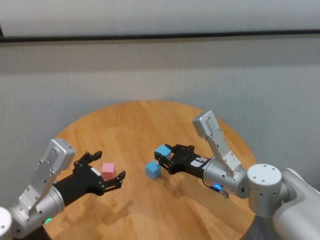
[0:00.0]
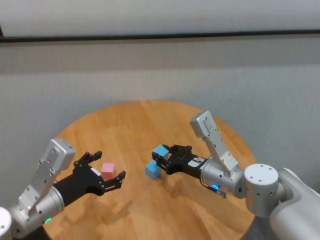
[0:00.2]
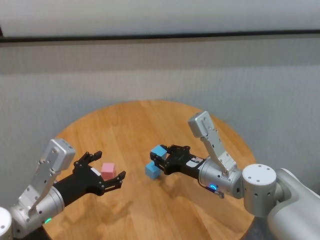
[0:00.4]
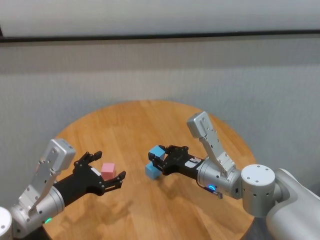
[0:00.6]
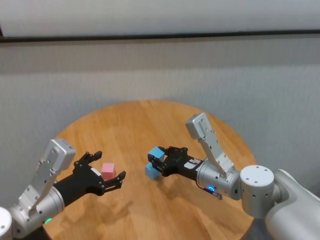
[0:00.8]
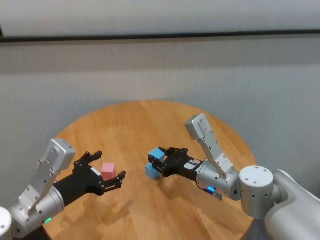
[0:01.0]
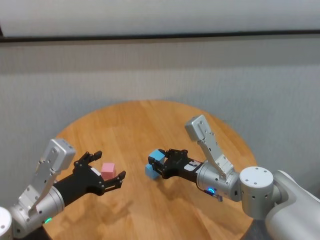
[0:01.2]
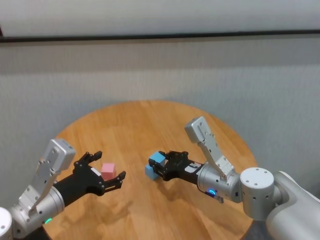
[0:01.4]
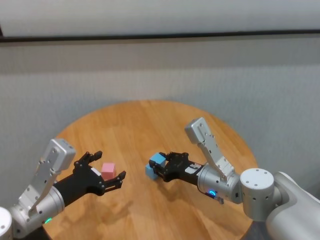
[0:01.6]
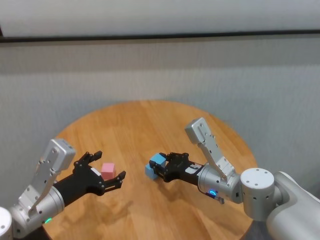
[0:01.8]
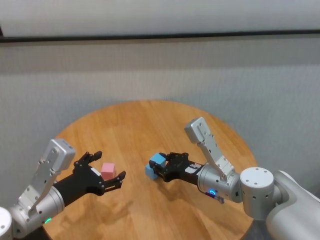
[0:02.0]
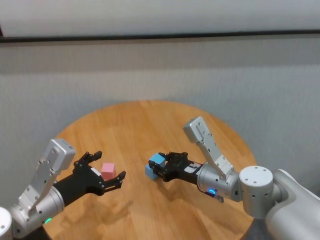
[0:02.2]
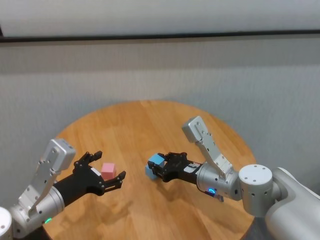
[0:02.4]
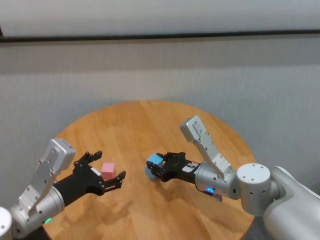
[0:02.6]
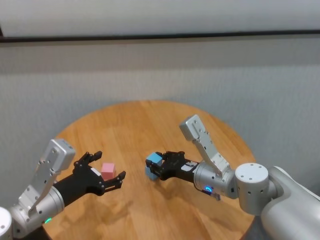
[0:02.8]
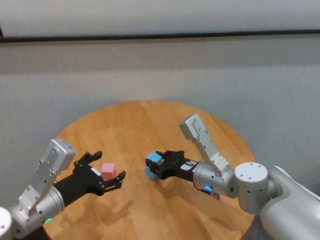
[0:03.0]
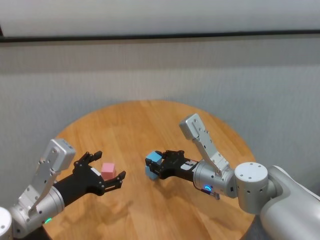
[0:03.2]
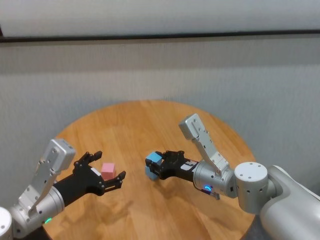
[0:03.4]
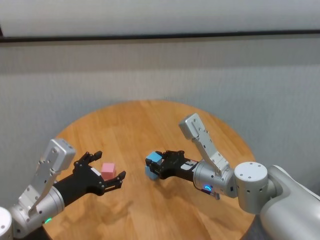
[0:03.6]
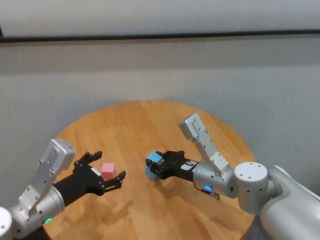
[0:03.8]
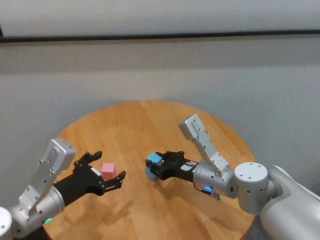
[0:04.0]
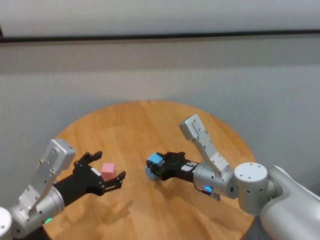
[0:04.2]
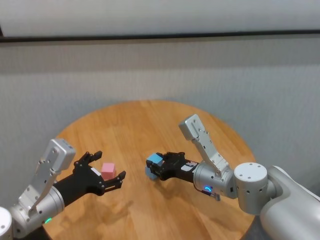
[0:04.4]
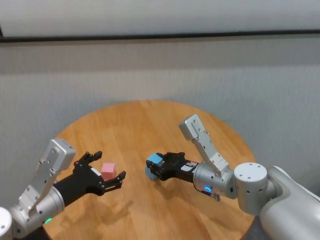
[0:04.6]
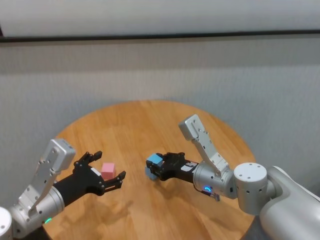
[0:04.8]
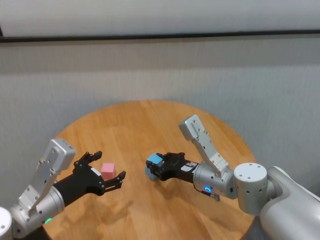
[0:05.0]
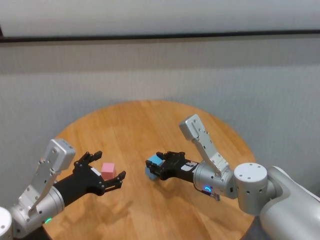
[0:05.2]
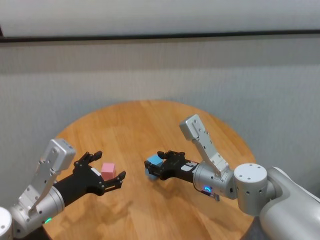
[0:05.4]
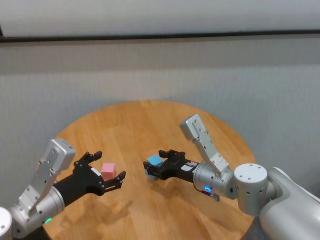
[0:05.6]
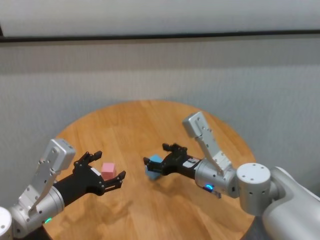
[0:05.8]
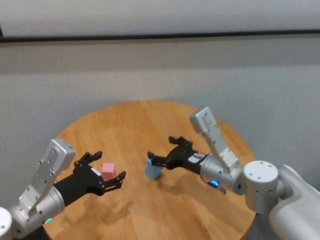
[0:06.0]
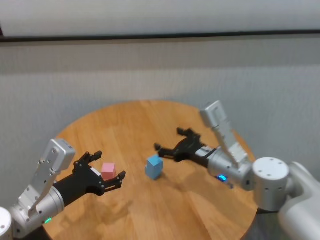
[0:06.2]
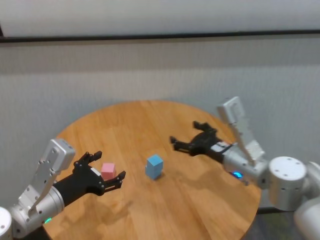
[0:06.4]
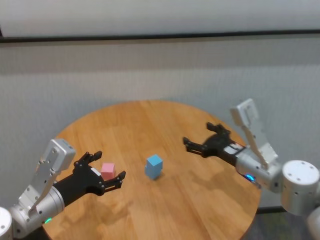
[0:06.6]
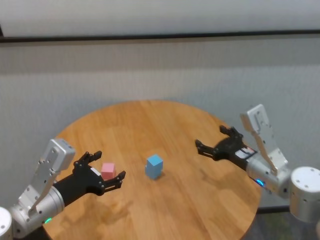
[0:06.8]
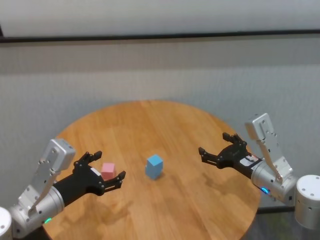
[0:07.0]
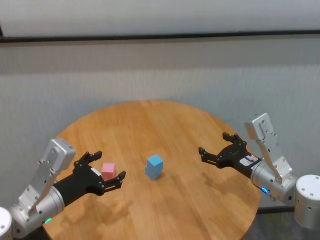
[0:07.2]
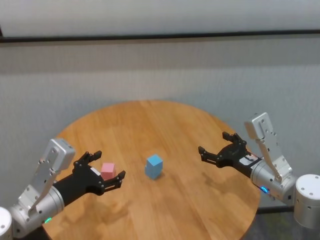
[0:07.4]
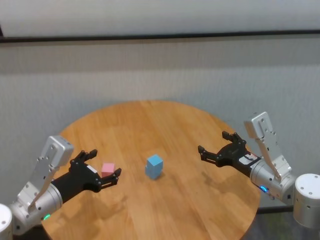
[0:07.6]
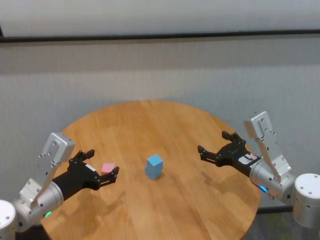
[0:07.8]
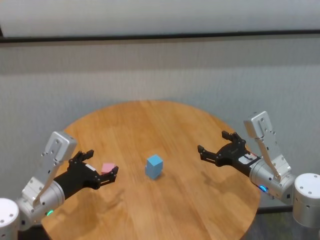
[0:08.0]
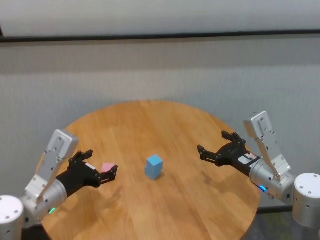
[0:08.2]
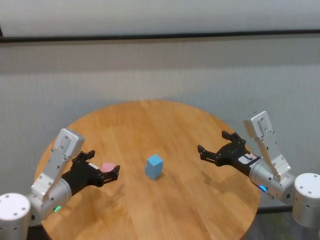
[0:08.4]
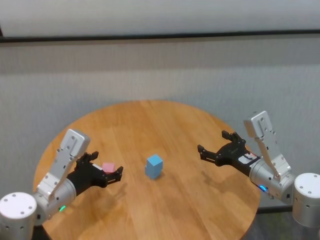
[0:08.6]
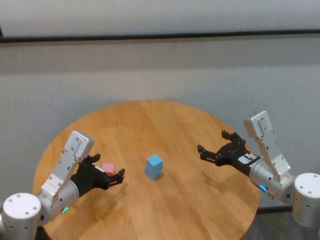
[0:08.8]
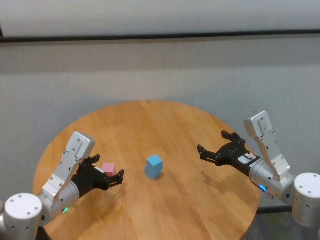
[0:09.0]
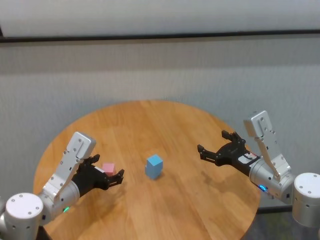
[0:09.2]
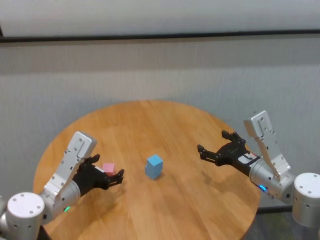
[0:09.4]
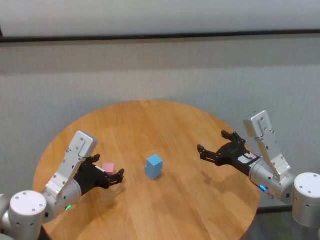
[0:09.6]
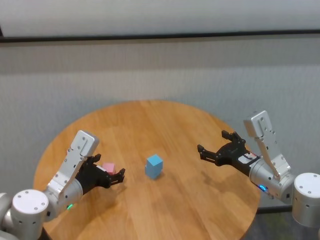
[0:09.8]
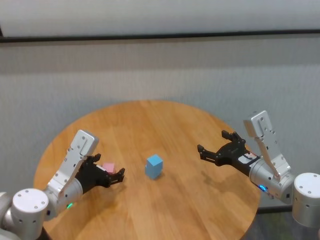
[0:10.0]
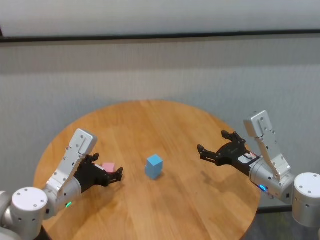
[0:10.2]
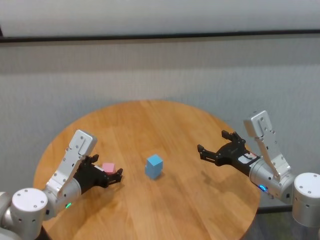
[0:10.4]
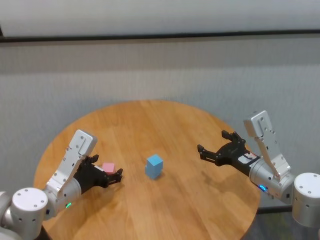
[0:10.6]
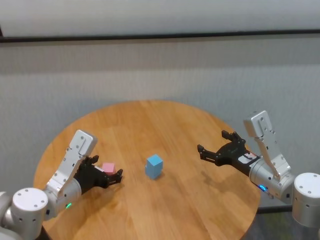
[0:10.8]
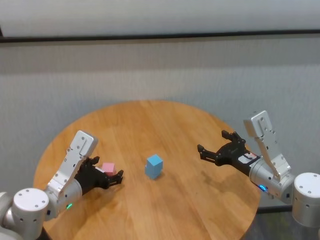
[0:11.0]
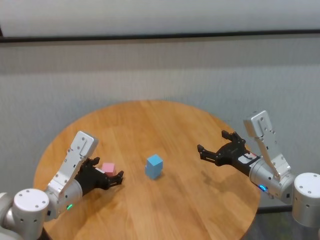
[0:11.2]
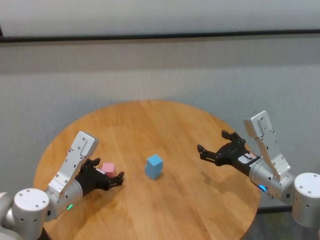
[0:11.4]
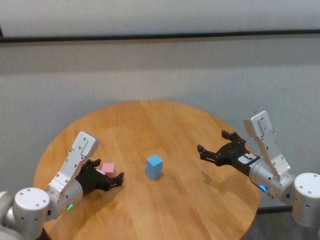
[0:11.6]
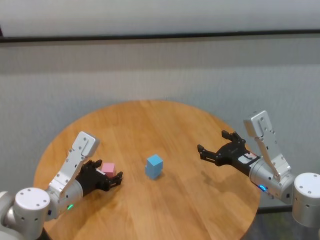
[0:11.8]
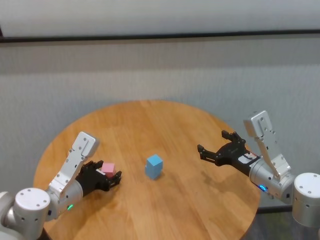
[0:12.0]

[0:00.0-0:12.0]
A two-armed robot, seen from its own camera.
Task of the whole recording: stack building blocks on the table.
Step, 0:00.0 to 0:05.6: Place the blue building block on the blue building blocks with right gripper.

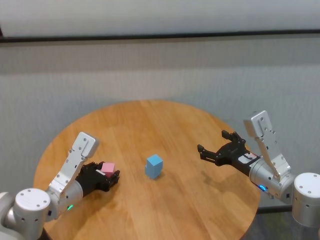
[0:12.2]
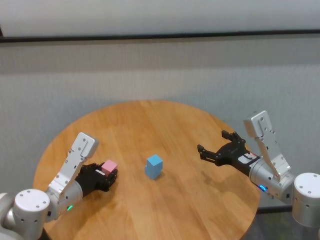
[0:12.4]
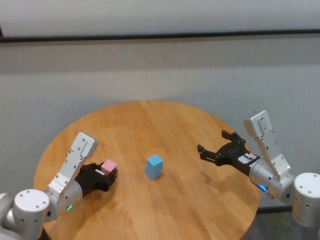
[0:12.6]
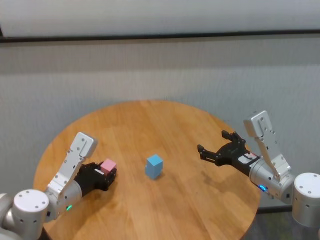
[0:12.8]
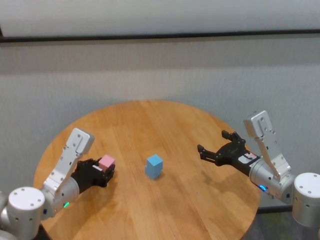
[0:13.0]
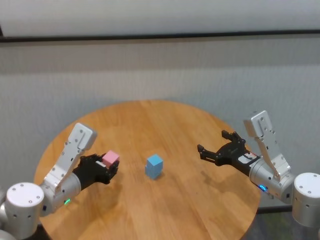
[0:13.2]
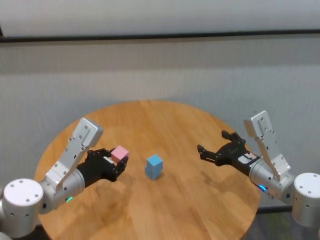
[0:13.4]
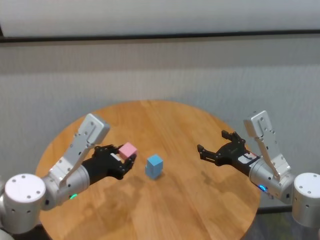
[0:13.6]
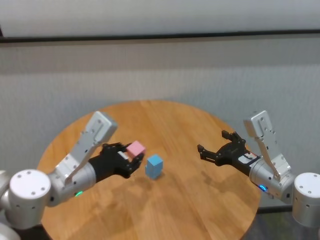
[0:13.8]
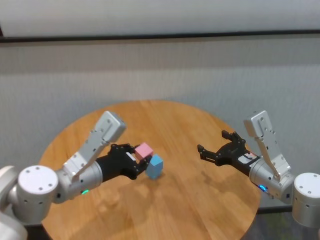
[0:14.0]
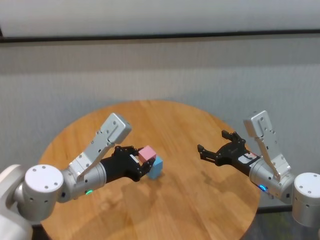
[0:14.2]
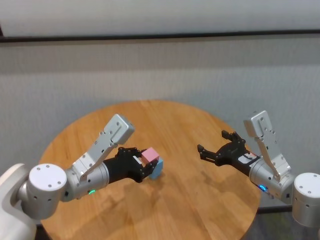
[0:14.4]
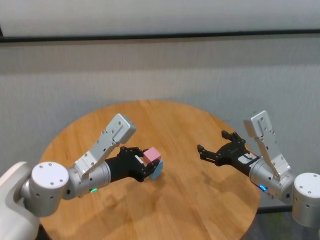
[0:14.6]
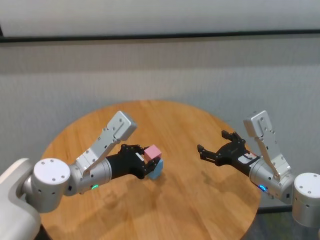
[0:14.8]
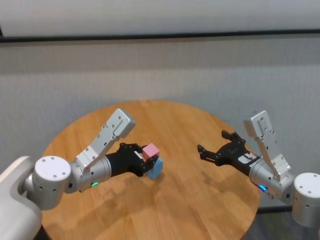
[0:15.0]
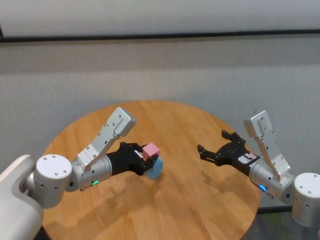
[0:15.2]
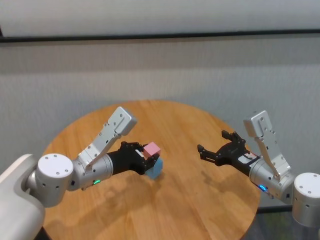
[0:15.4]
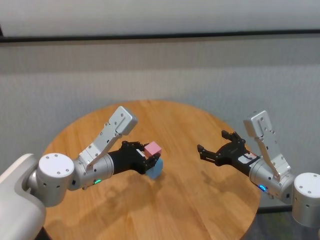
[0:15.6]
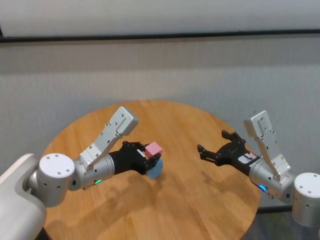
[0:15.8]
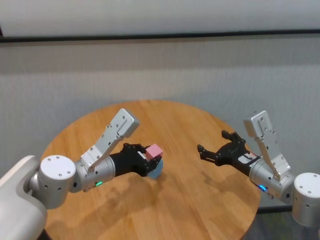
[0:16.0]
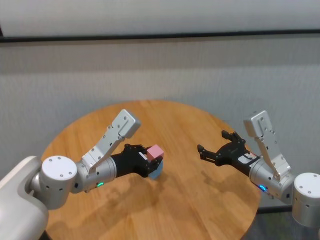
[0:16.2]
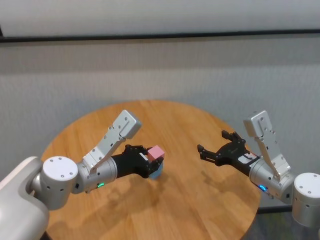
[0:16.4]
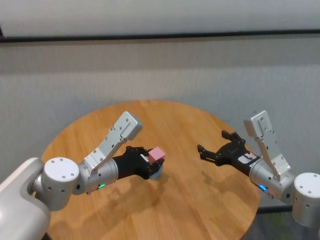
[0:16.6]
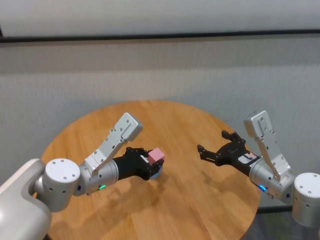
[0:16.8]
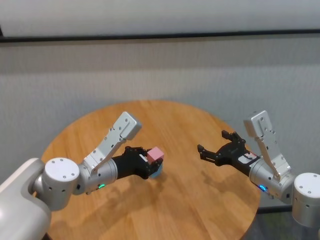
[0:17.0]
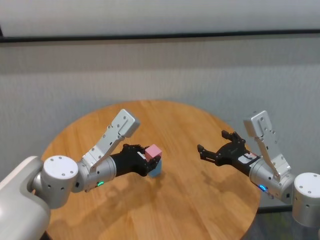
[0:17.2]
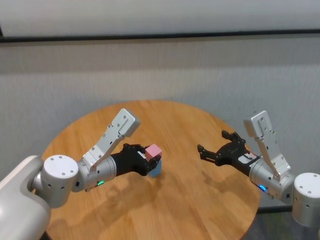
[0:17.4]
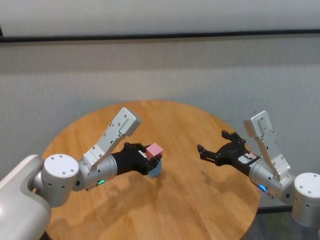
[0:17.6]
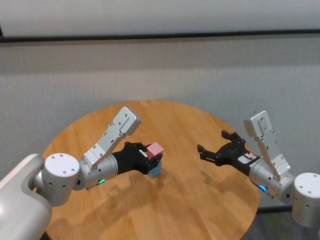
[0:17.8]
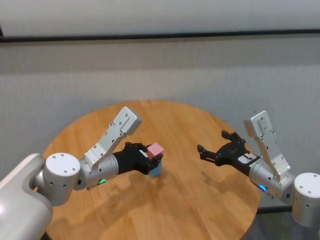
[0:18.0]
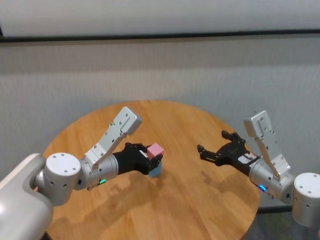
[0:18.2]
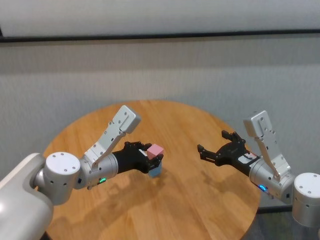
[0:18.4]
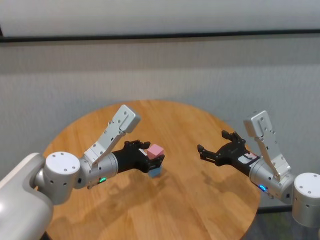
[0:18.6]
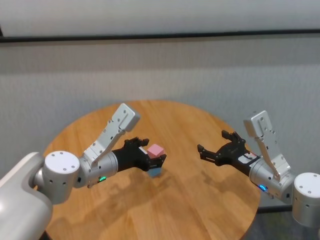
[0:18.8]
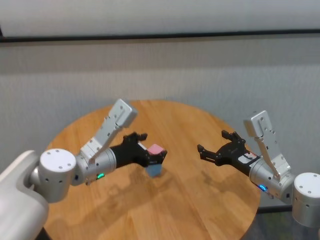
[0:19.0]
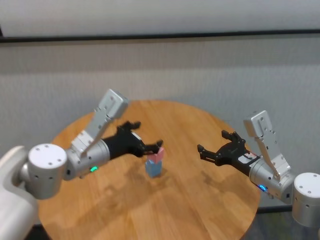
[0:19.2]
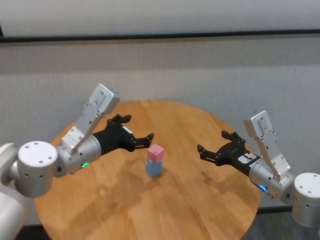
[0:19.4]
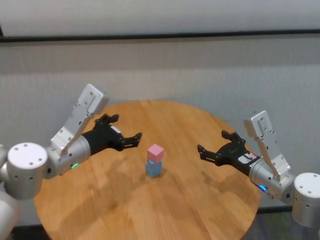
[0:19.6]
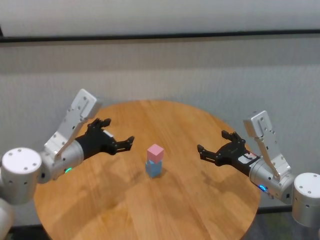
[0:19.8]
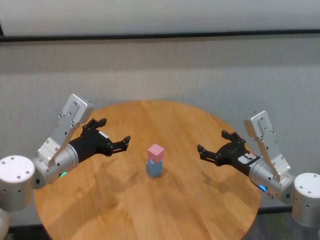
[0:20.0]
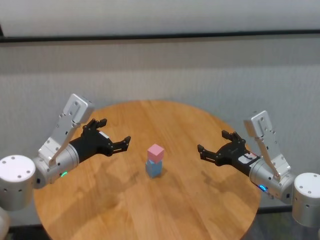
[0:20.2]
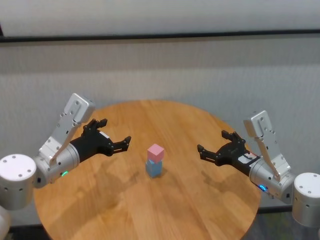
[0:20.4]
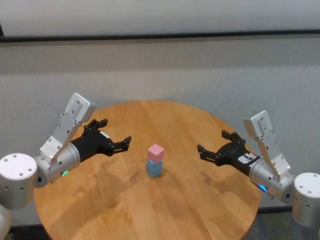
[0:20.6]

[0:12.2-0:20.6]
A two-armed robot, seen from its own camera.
Task of the whole recording: stack building blocks on the table.
Step, 0:12.4 to 0:18.6: Place the pink building block on the blue building blocks with left gripper.
